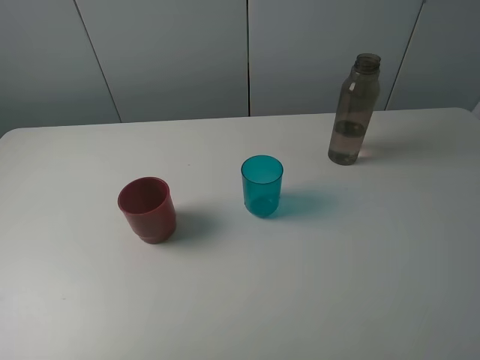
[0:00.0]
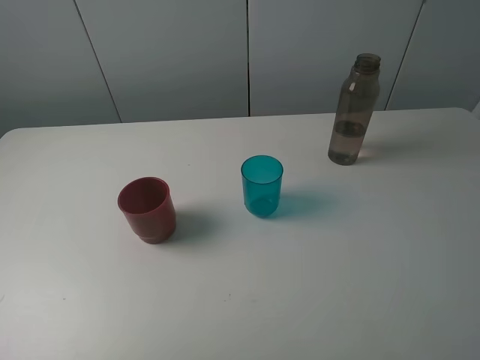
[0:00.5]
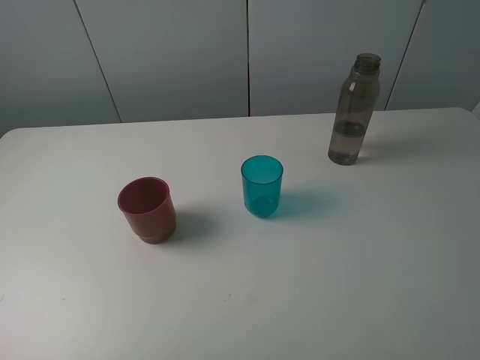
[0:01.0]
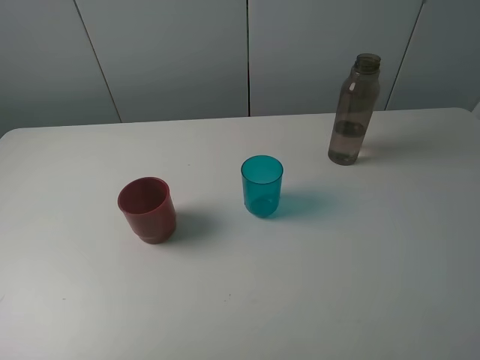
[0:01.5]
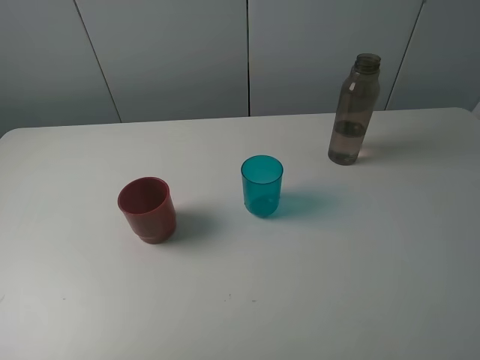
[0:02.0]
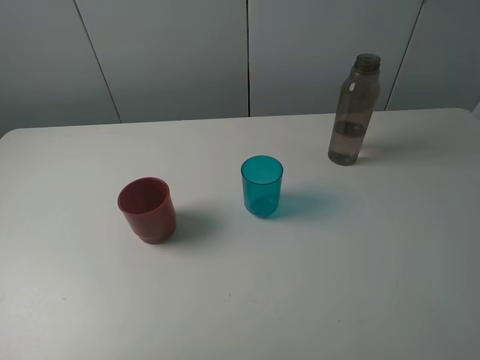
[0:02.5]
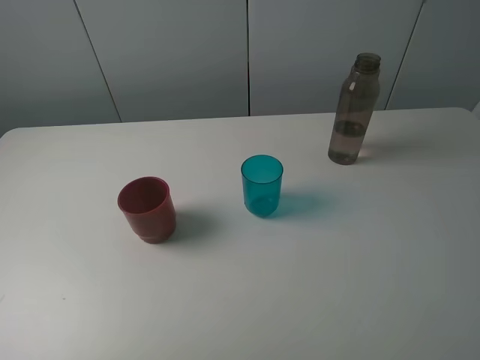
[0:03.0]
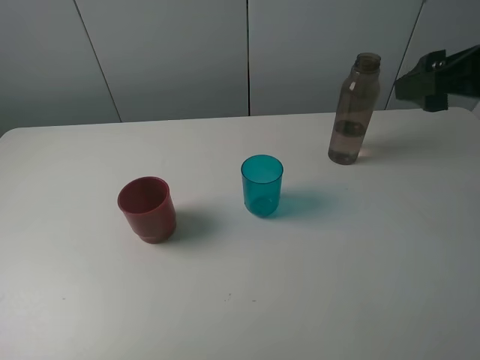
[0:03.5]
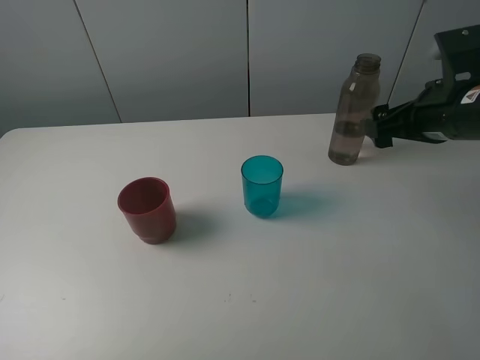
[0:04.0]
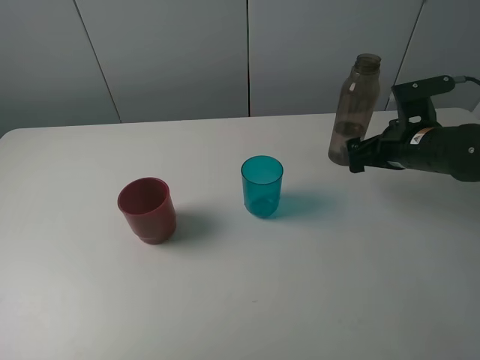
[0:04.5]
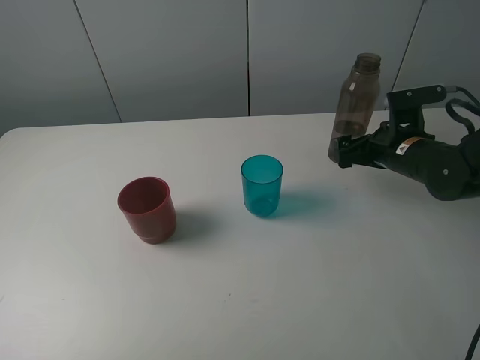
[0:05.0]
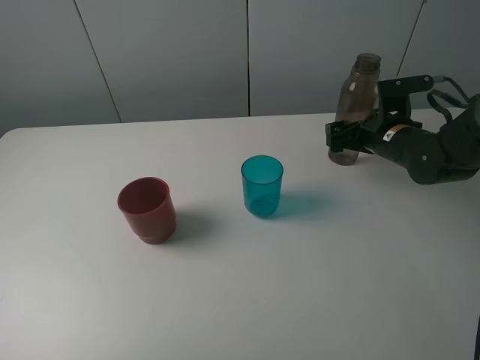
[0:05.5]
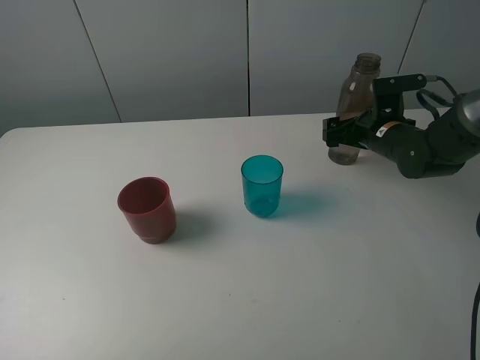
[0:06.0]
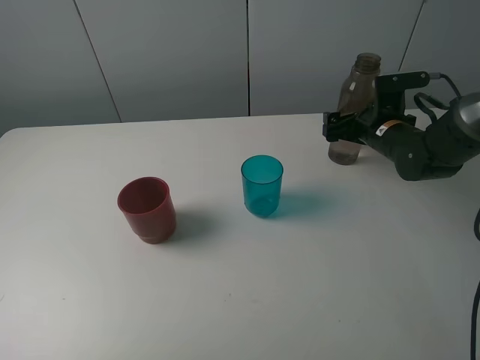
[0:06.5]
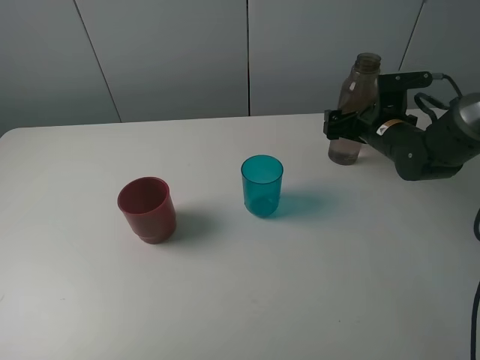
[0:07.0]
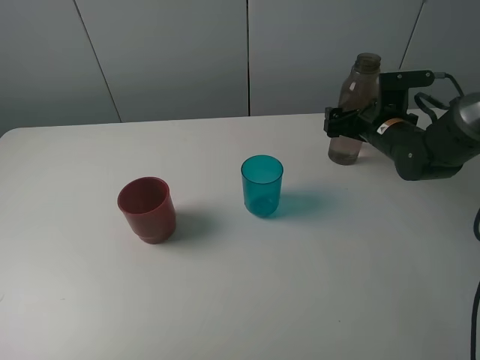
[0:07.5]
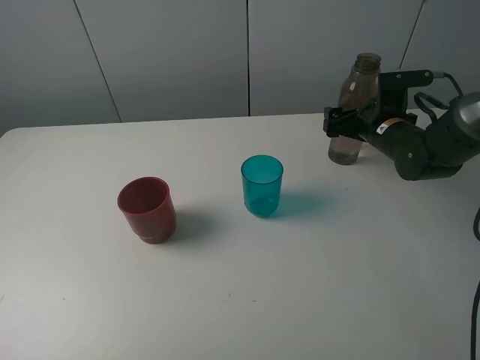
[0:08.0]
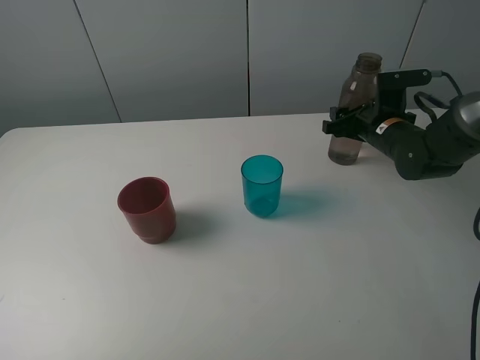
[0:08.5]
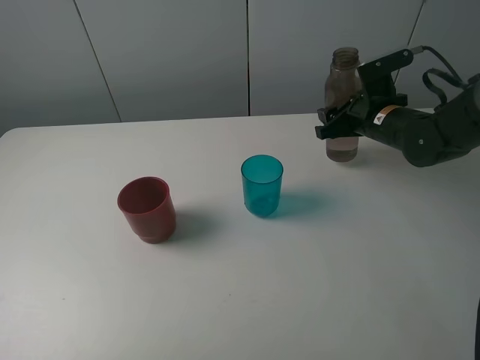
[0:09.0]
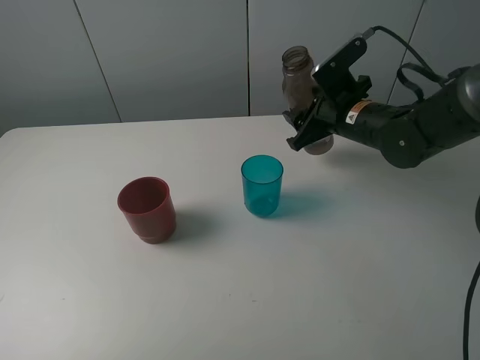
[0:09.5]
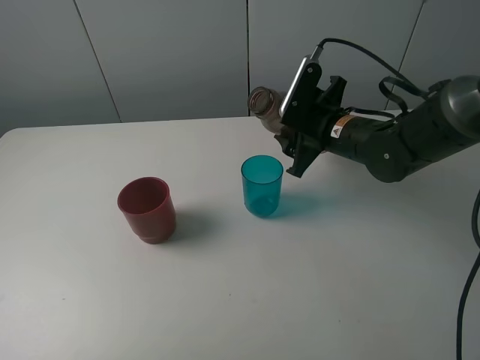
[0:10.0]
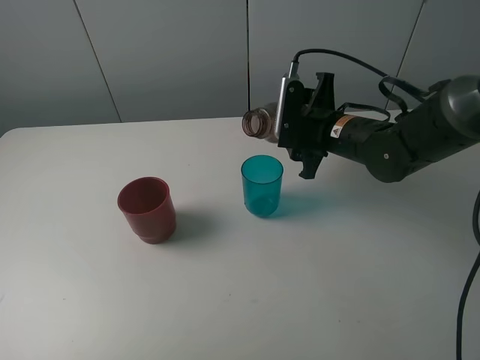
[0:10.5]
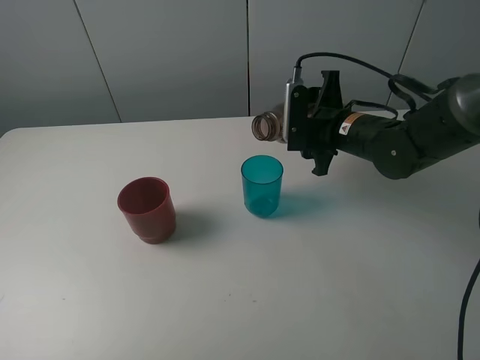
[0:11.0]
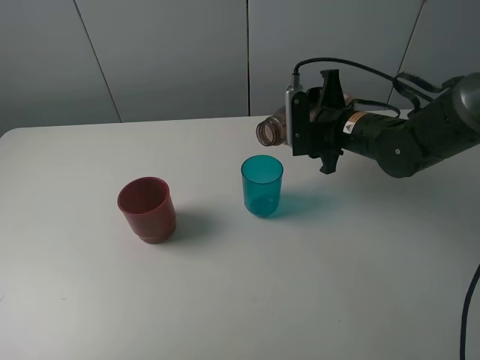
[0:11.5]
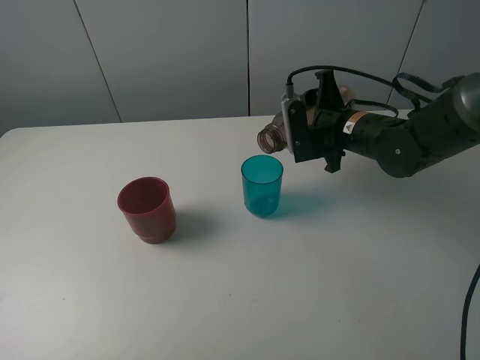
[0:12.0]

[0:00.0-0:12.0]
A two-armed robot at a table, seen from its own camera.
Task of the whole recording: pick up the bottle and pour water into the cup, then pick up the cup containing water and pour it into another cup.
Step, 0:00.0 to 0:08.0: Grasp the brown bottle with the right gripper.
0:00.0 to 0:02.0: Both grippers stay put.
0:02.0 to 0:04.0: The right gripper heads forward, covering some 25 cm.
0:04.0 to 0:06.0: The right gripper moves downward and forward, some 15 cm.
0:06.0 to 0:08.0: There are only small adjustments of the grippers.
0:08.0 to 0:10.0: The right gripper is displaced to the left by approximately 10 cm, and closes up.

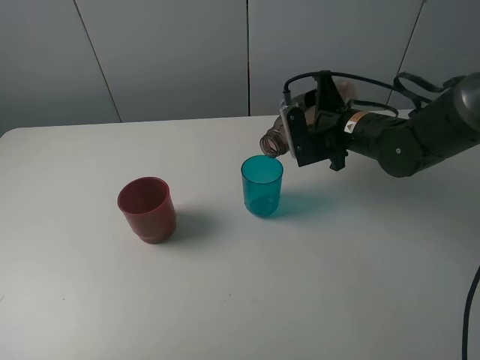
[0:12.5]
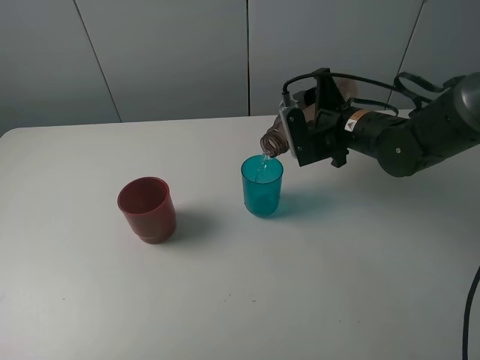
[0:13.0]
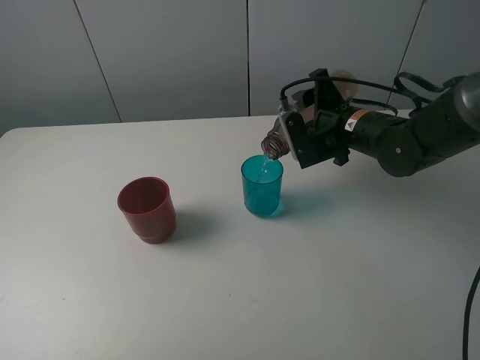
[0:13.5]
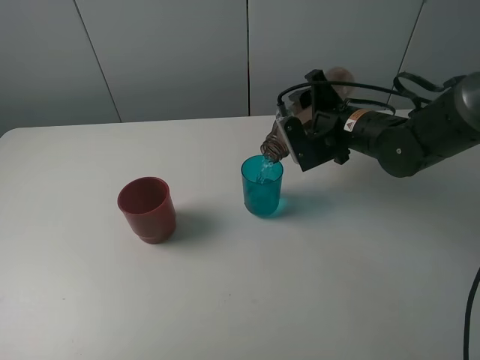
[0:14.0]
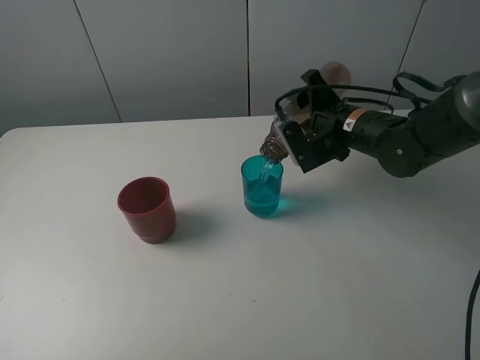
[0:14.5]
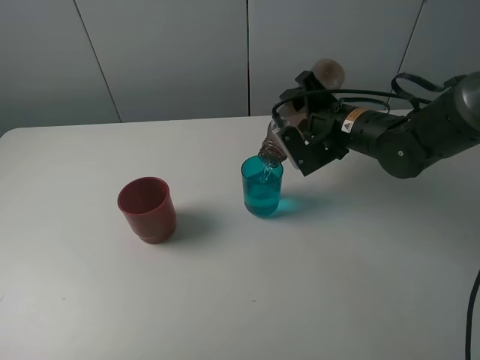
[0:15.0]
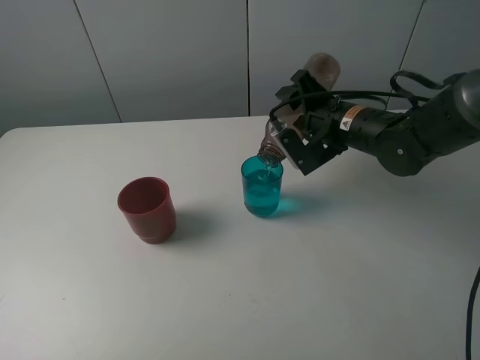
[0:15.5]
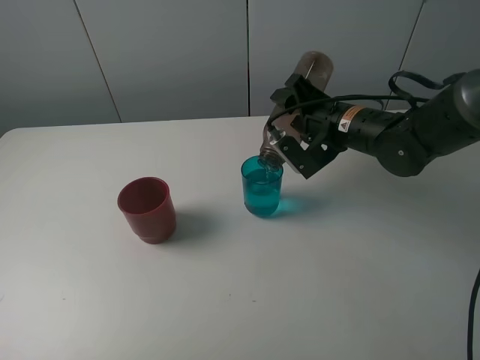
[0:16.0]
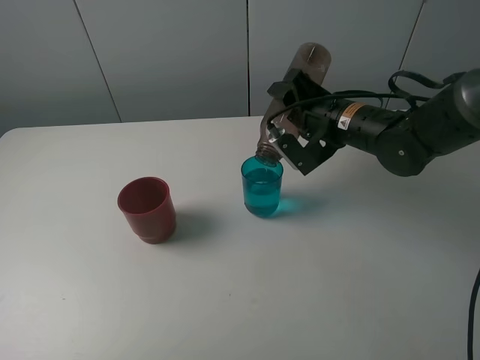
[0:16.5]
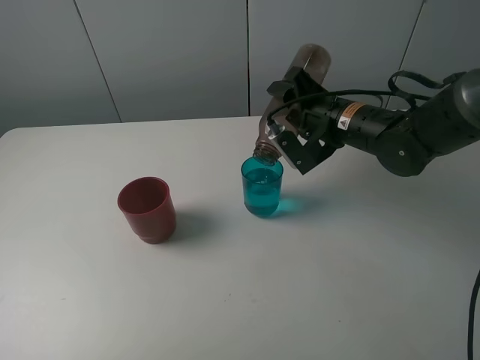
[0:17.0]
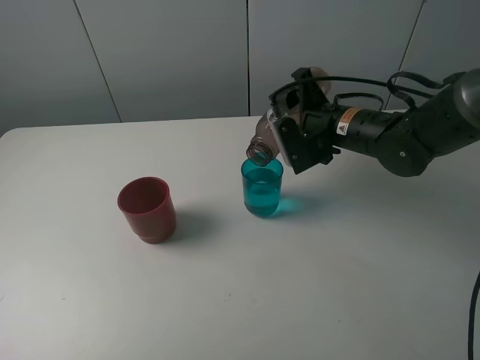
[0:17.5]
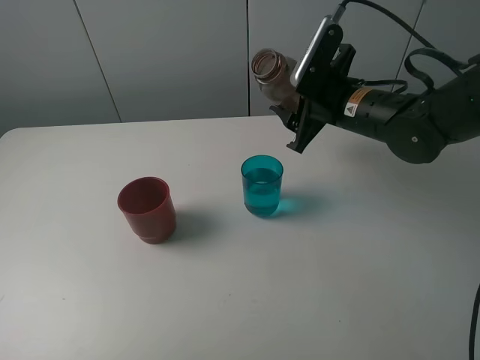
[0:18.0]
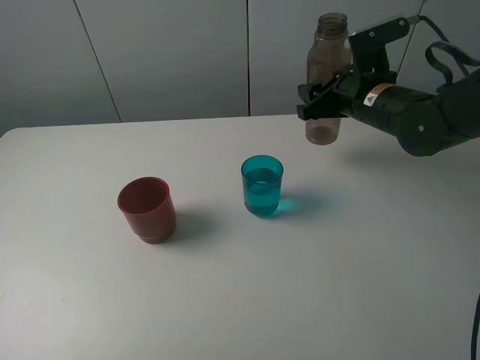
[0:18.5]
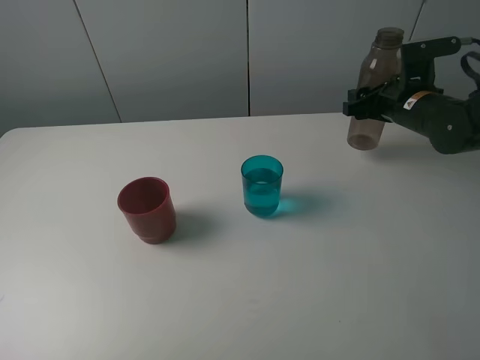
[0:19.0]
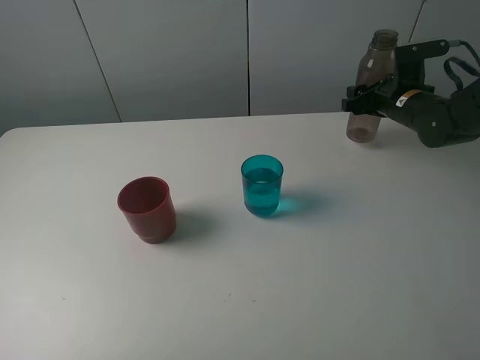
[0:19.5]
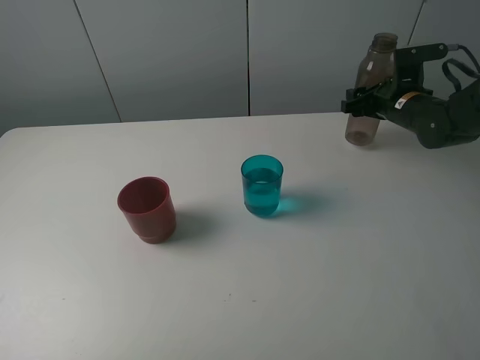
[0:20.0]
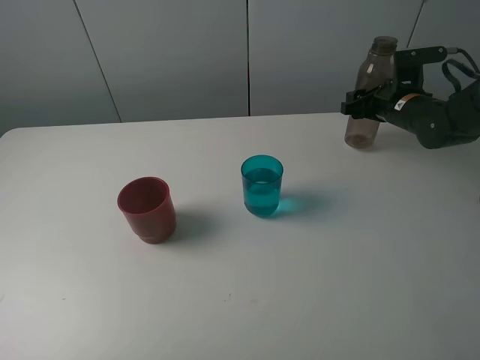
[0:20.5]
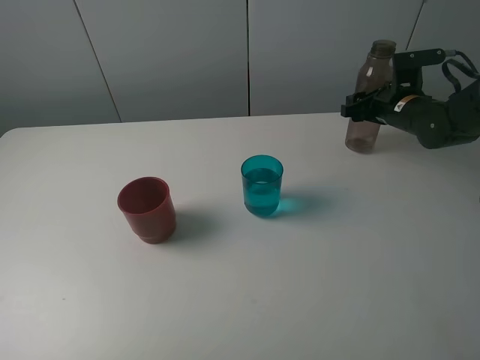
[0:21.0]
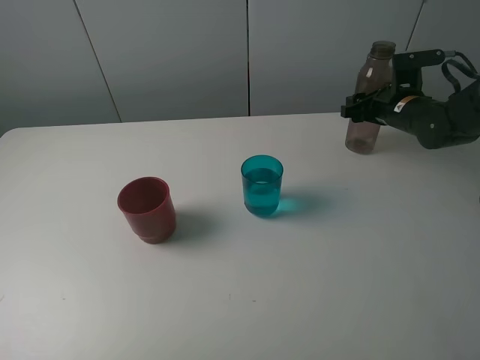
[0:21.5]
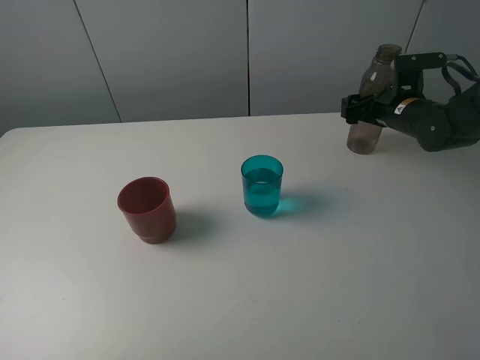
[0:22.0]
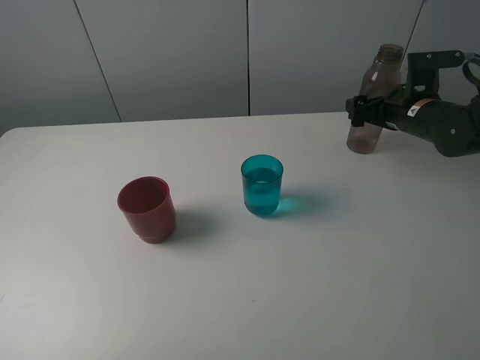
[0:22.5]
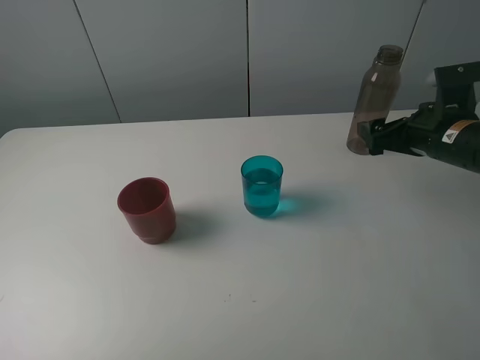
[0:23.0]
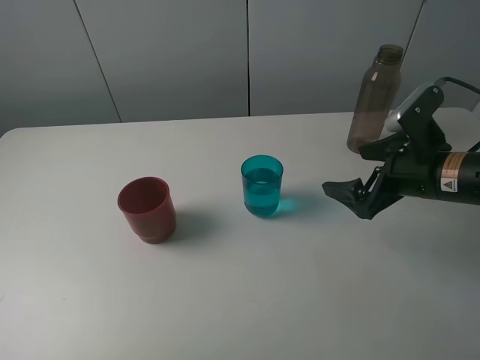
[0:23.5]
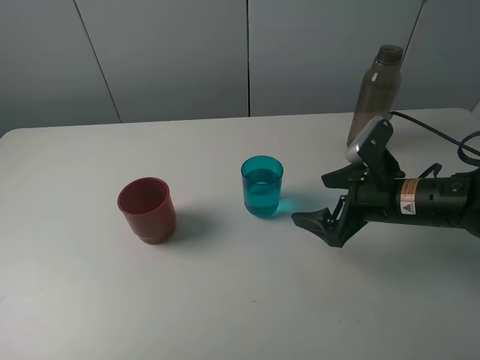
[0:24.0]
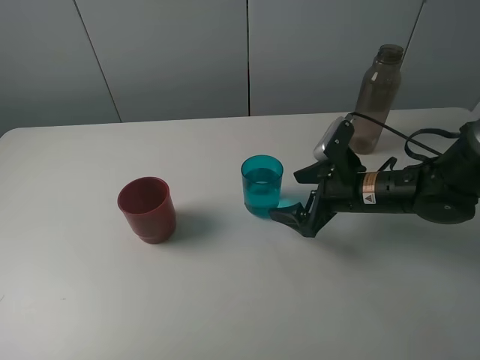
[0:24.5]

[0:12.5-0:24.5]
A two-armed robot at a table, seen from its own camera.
Task of the whole recording: pick up the bottle and pour water into the cup, then pick up the cup containing water and pour it into another cup.
Step, 0:12.5 to 0:17.0: Pour water from brown bottle to blue cup with the right gripper.
Step, 0:17.5 to 0:22.0: Place the brown bottle with the right gripper.
0:12.5 to 0:14.5: The grippers move only a little.
0:14.5 to 0:16.5: There are only small adjustments of the grippers.
0:16.5 to 0:18.5: The right gripper ends up about 5 cm from where it was.
0:18.5 to 0:20.5: The right gripper goes about 10 cm to the right, forward and downward.
0:20.5 to 0:22.5: The right gripper opens.
0:22.5 to 0:24.5: The right gripper shifts about 15 cm to the left, backward and downward.

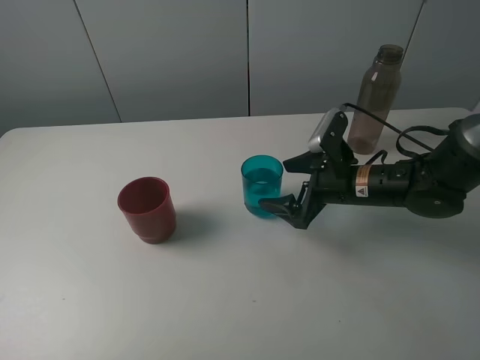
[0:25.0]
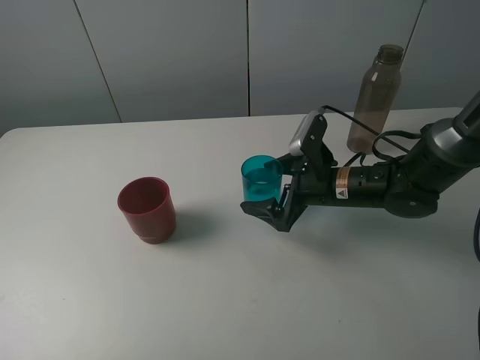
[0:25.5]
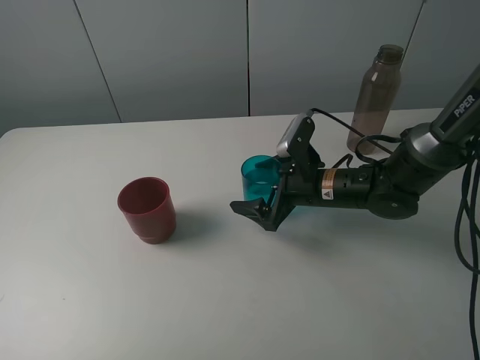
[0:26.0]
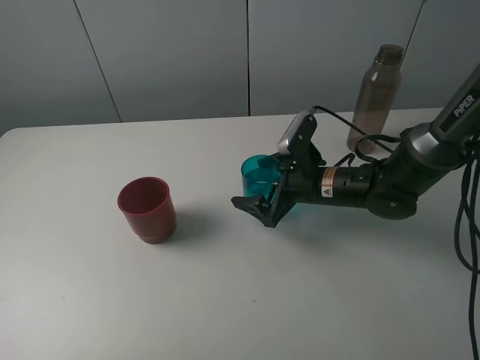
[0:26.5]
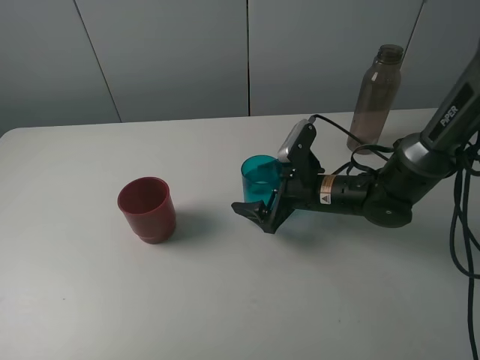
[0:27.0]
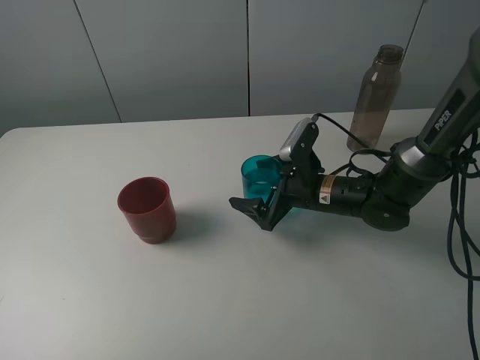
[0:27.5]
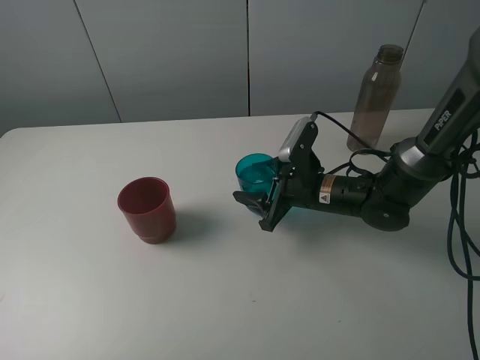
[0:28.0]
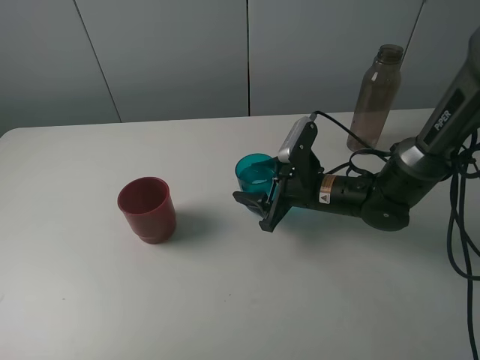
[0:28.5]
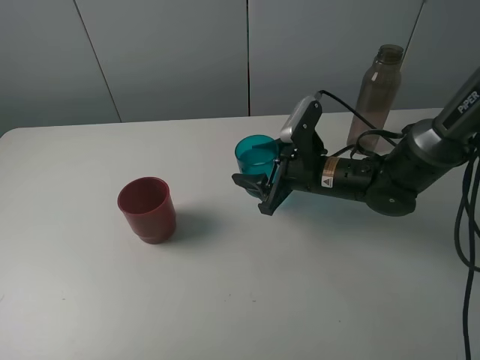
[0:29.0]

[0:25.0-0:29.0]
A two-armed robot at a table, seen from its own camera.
Task of the whole recording: pick up the bottle and pour water into the cup, then pick up the cup containing water and pour it into another cup.
Step, 0:25.0 to 0:28.0: Grasp the blue cup with the right gripper.
0:25.0 to 0:27.0: The right gripper moves roughly 5 cm.
0:27.0 to 0:29.0: The right gripper closes its fingers.
